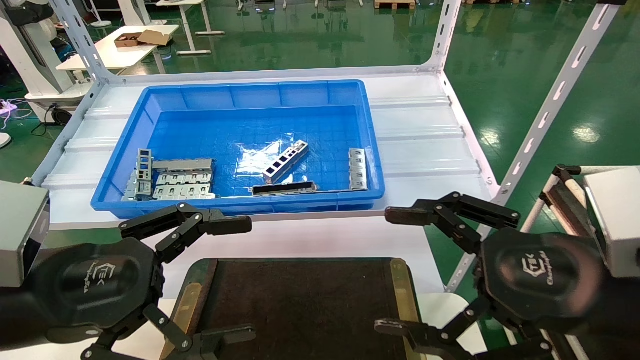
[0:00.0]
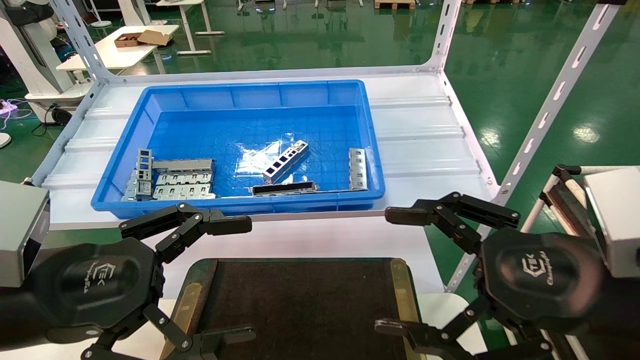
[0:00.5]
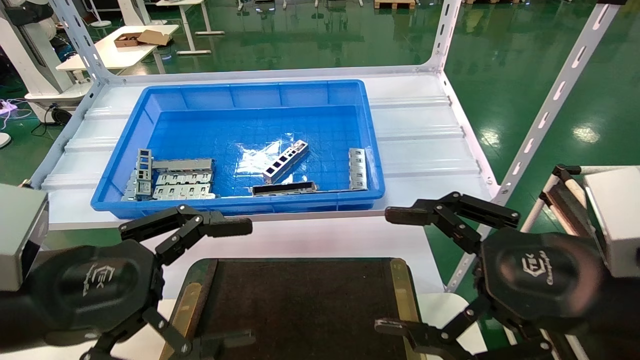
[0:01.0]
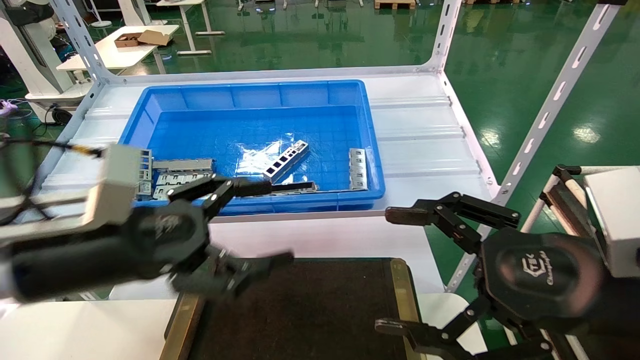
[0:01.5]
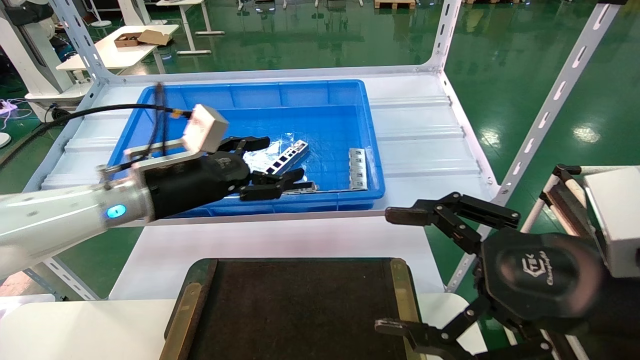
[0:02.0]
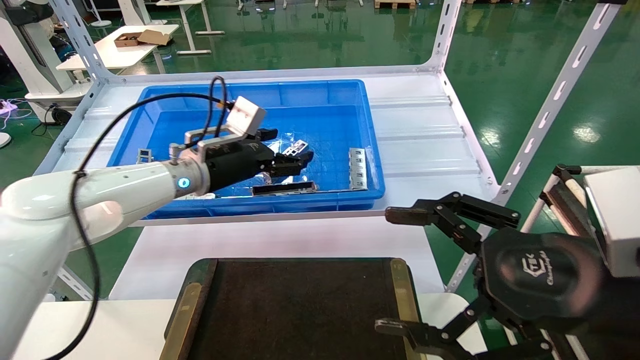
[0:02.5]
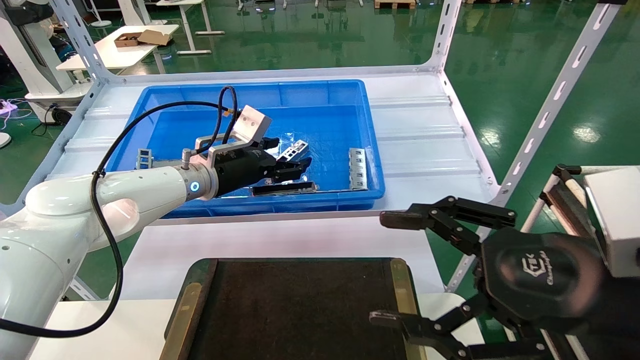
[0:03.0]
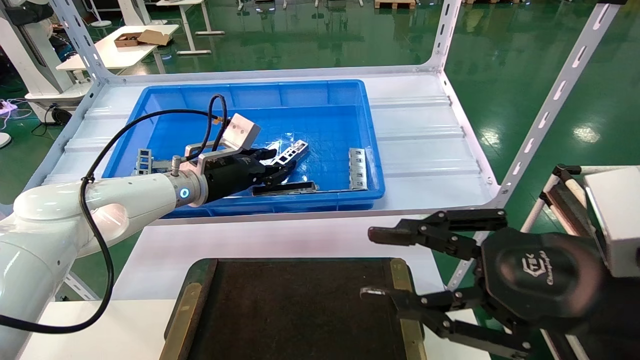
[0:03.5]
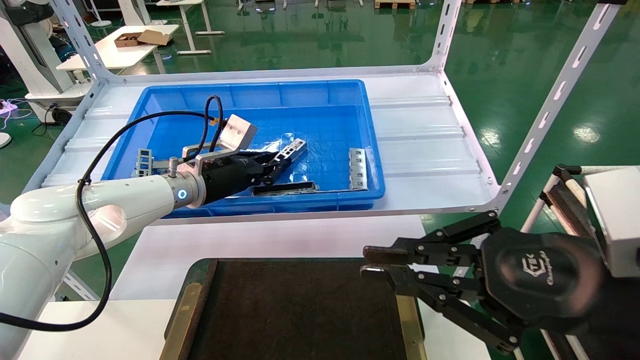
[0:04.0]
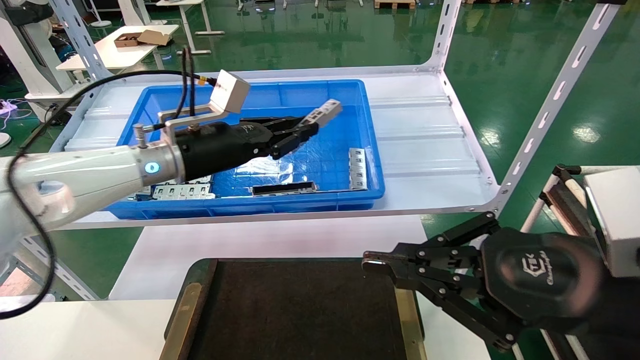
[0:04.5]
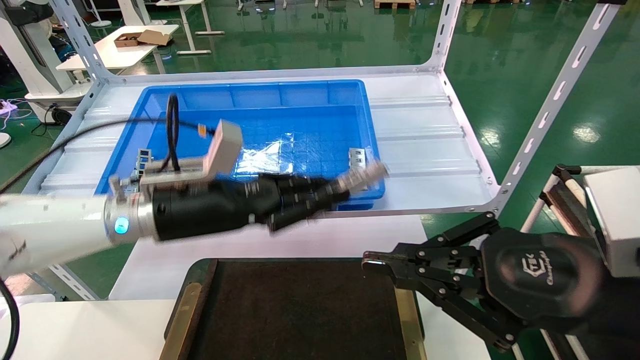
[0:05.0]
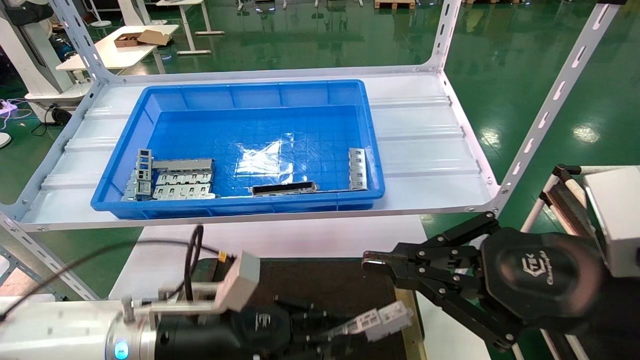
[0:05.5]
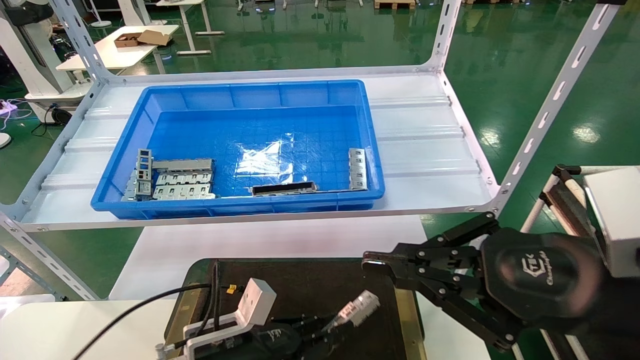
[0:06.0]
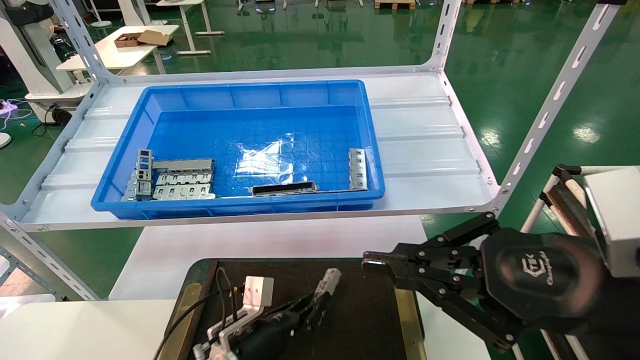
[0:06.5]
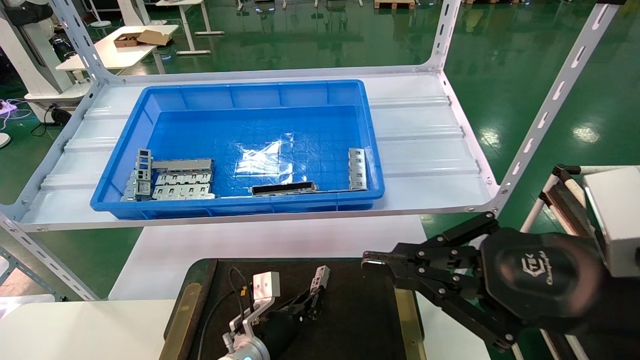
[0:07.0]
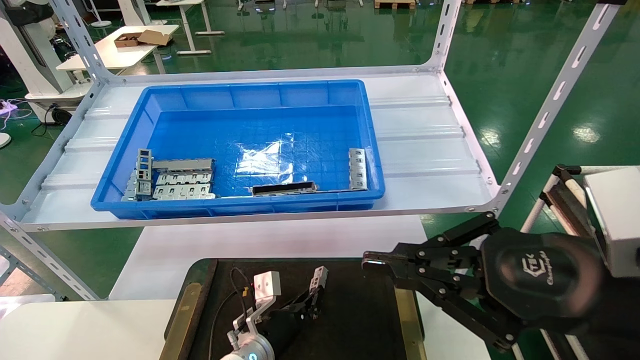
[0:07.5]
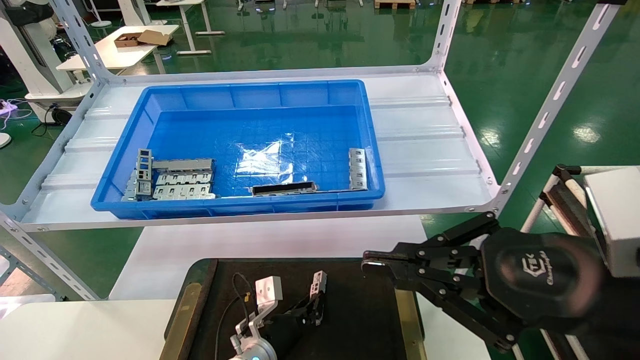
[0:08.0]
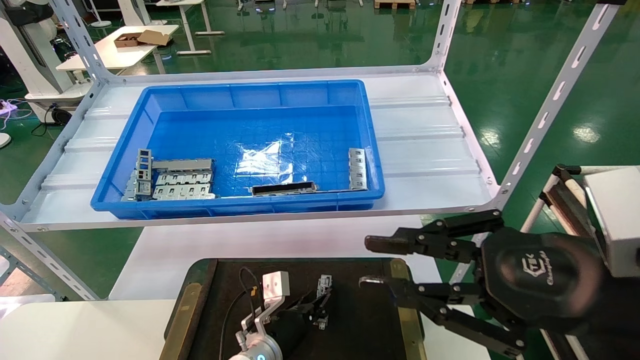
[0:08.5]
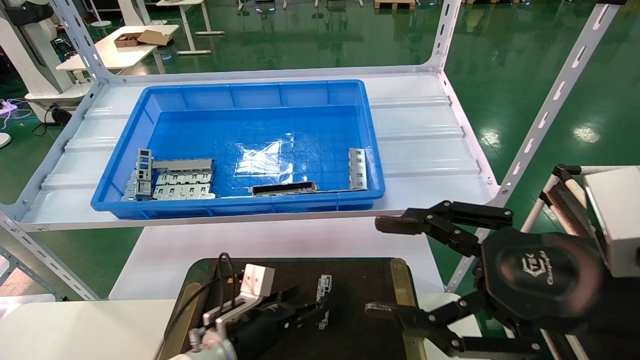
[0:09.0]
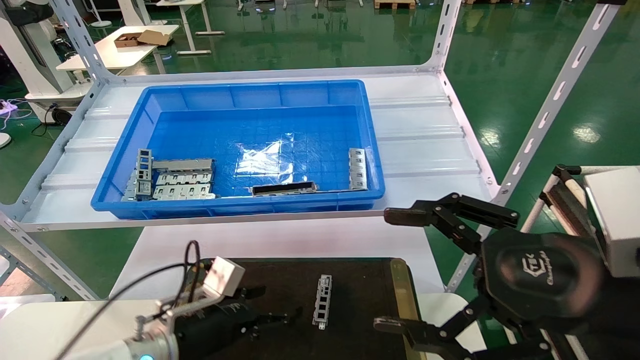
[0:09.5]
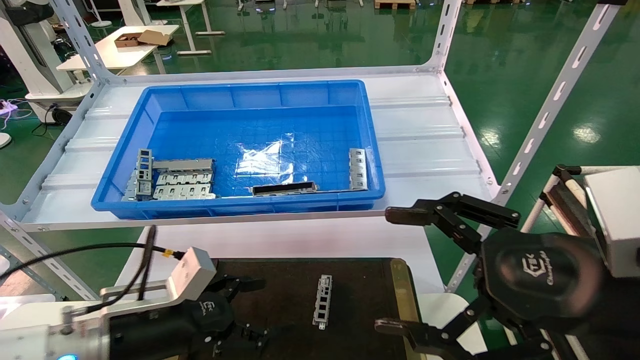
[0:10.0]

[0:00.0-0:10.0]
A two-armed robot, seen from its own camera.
Task of the whole recording: Grasp the part with one hand and place it on the black container.
Step, 0:01.5 to 0:03.5: Pick up the front USB bracket from the feeding area.
Step, 0:04.0 to 0:08.0: Place the front USB bracket into the box.
0:00.0 to 0:02.0: The left gripper heads forward, covering some 20 cm.
0:02.0 to 0:04.0: The left gripper heads forward, covering roughly 10 cm, and closes up, while the right gripper closes.
0:04.0 to 0:06.0: The left gripper travels downward and backward by roughly 30 cm.
0:06.0 to 0:08.0: The left gripper shifts about 15 cm forward, downward and to the right.
0:08.0 to 0:10.0: The left gripper shifts approximately 25 cm upward, to the left and backward, and opens up. Meanwhile the right gripper opens its fingers.
